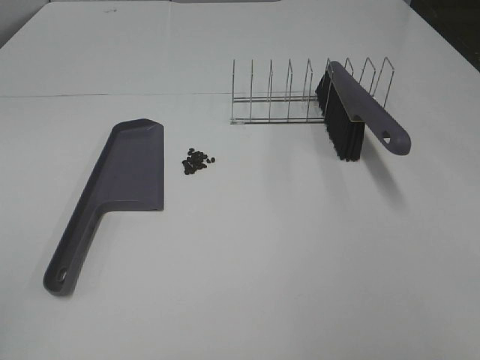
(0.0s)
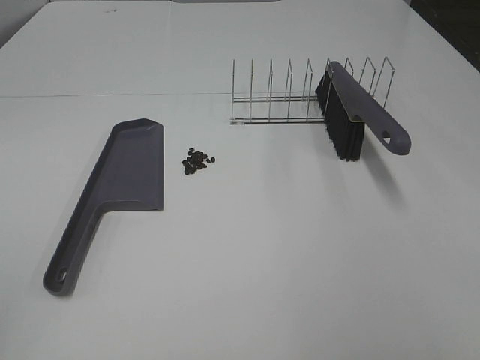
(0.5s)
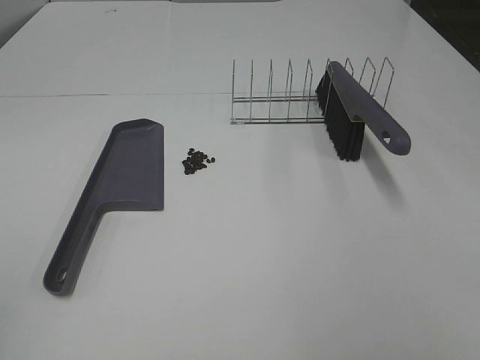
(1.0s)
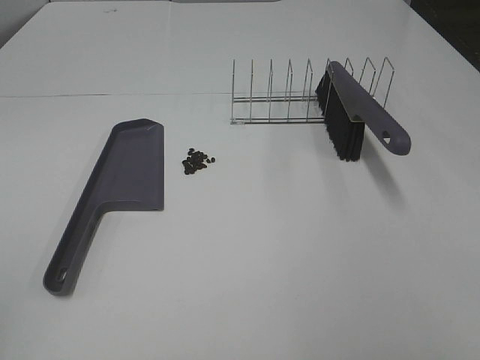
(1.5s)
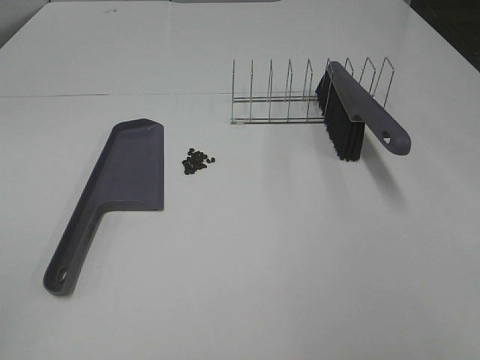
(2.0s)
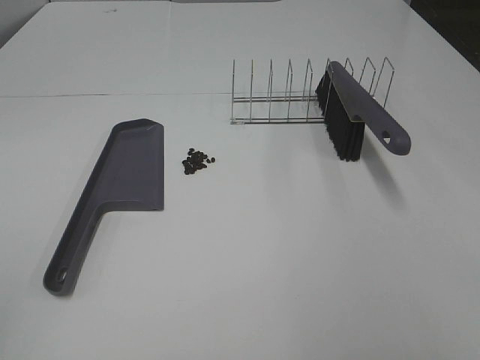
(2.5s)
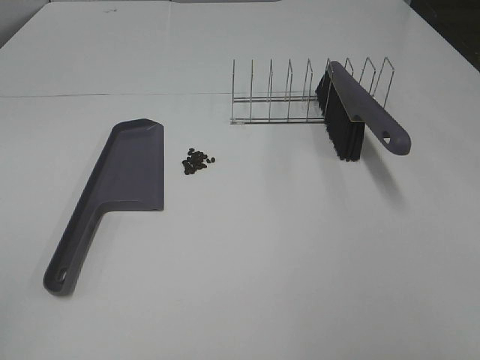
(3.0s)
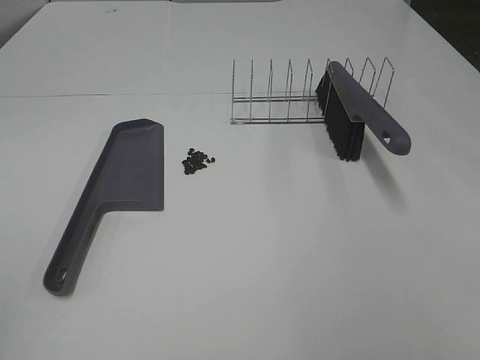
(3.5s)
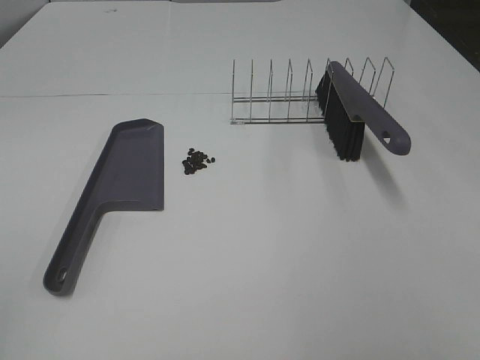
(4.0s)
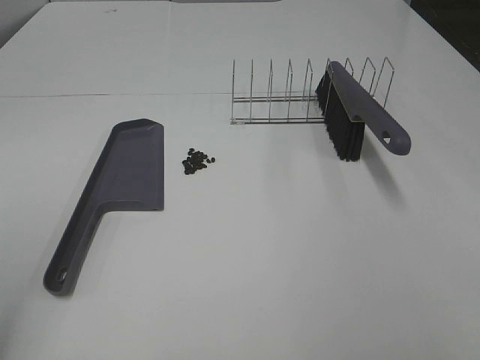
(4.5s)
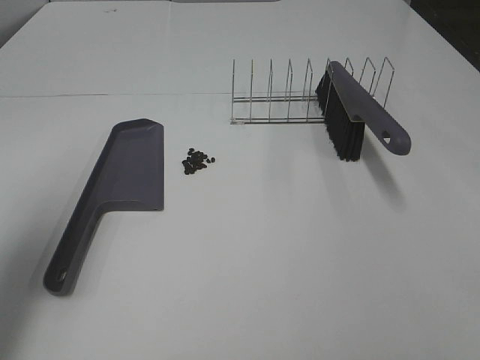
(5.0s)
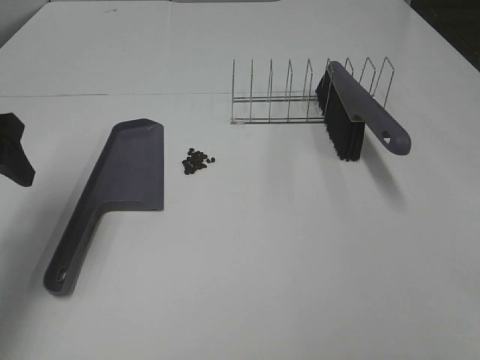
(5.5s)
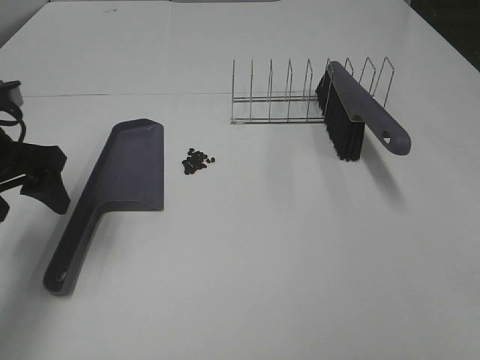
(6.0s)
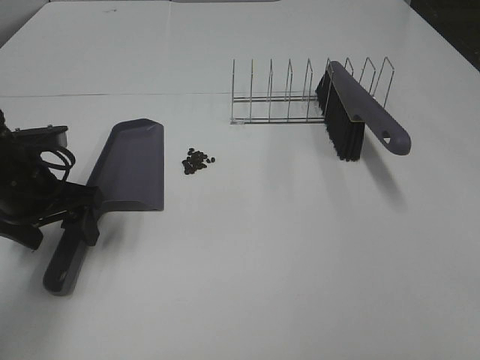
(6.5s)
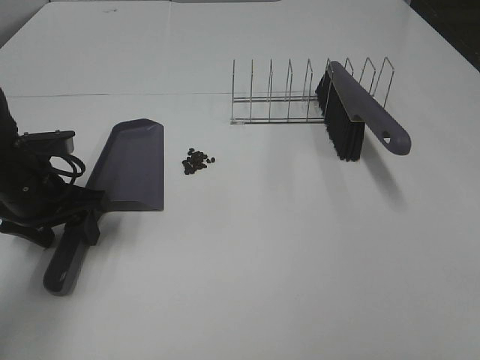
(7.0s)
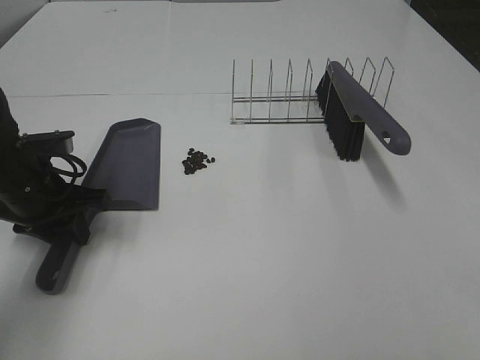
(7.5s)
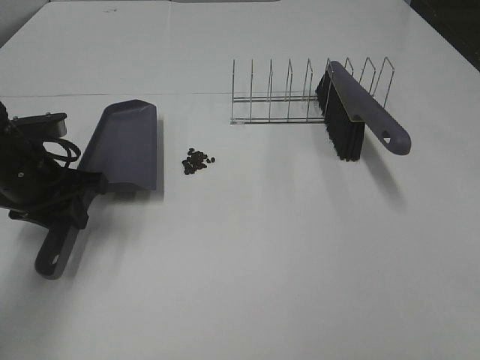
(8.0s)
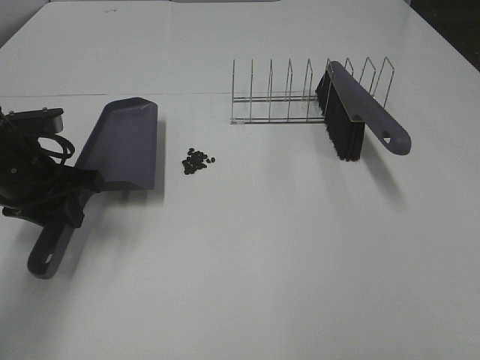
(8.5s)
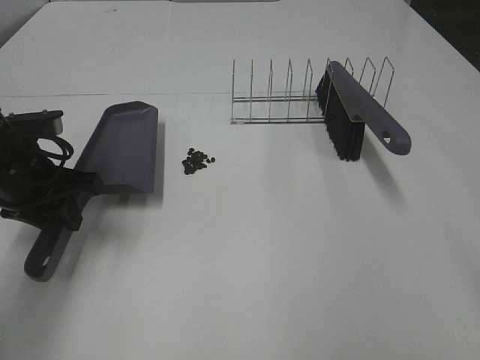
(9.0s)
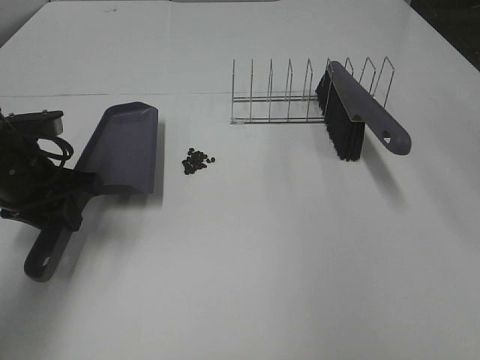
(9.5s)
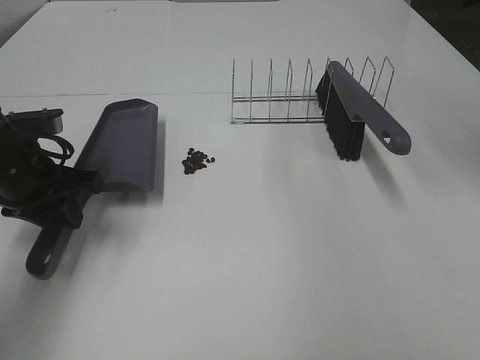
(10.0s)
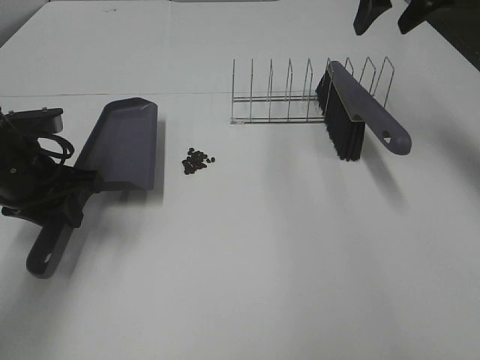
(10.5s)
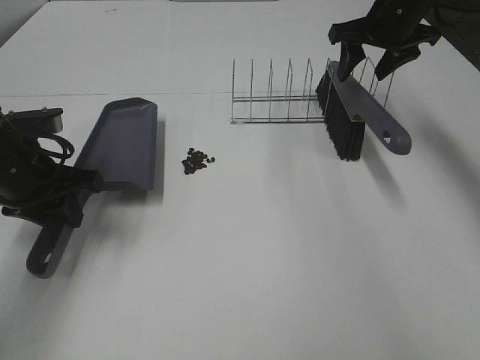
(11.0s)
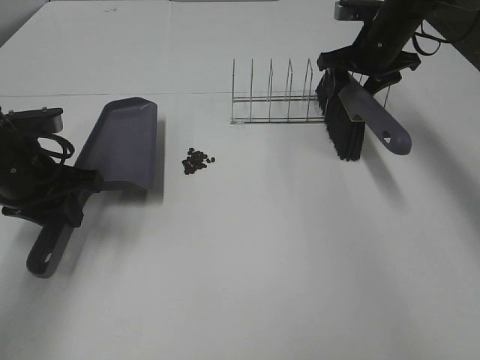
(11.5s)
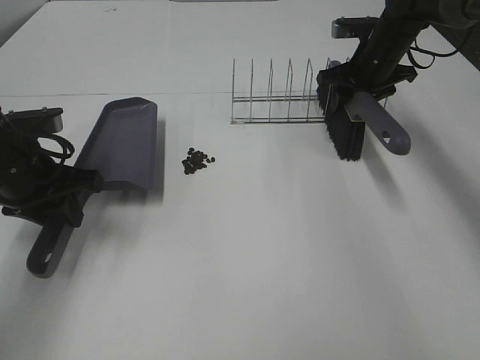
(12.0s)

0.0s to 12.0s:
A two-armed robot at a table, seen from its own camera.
Task of the whole recording: Sweep Coffee Bean.
Step, 0.0s to 7.5s: Left hand: grab the dustpan.
0.0s to 4.0s: Both grippers stay about where they are.
4.0s to 6.0s: The left gripper is displaced forward by approximately 30 cm.
6.0s to 8.0s: The left gripper travels downward by approximately 5 cm, and closes its fingers.
10.0s to 12.0s: The right gripper is displaced downward and forward by about 25 cm.

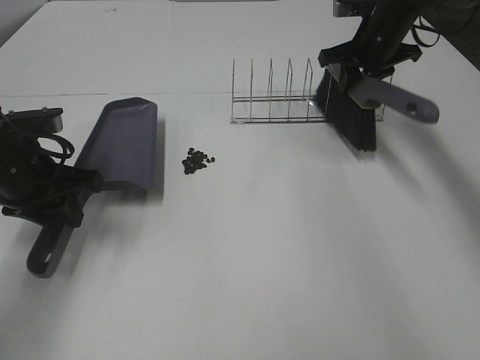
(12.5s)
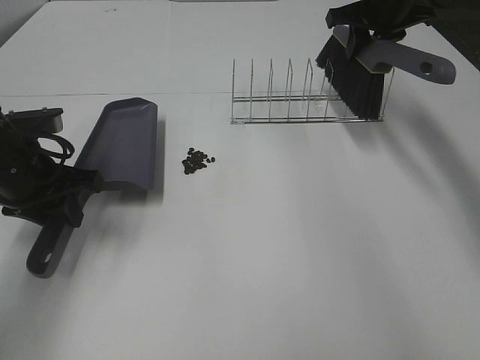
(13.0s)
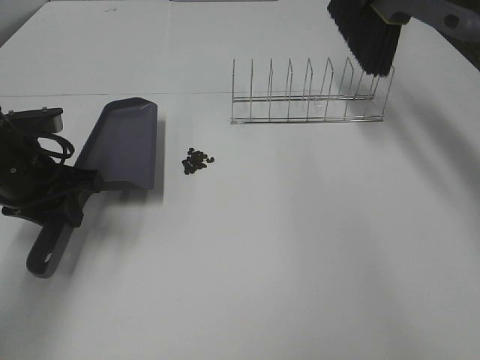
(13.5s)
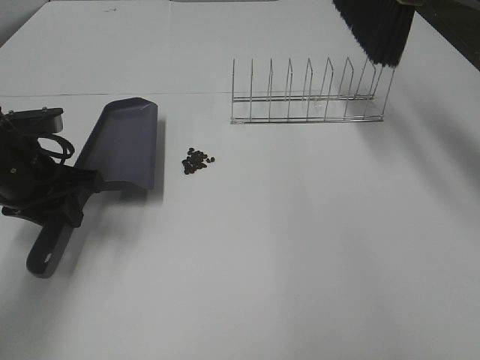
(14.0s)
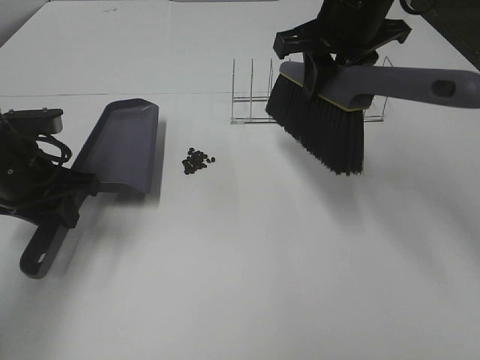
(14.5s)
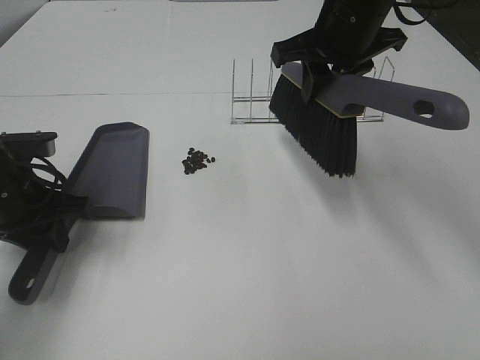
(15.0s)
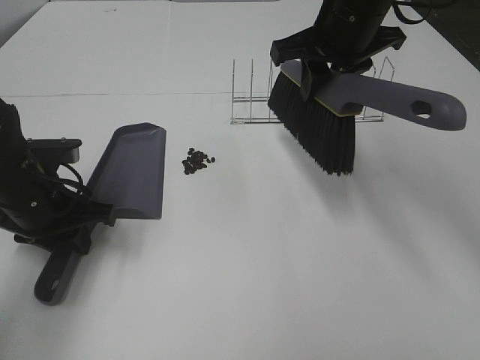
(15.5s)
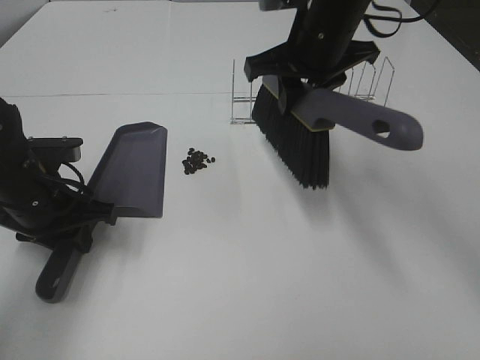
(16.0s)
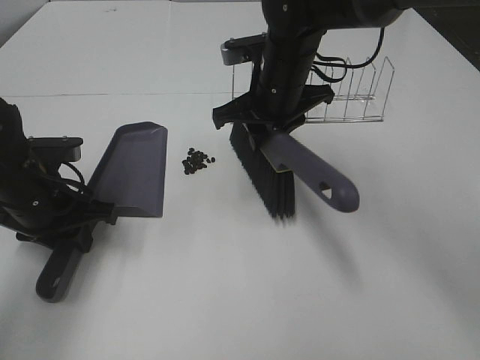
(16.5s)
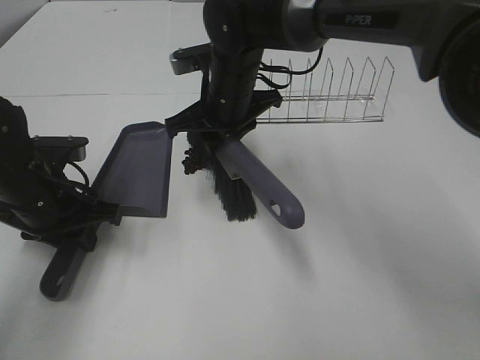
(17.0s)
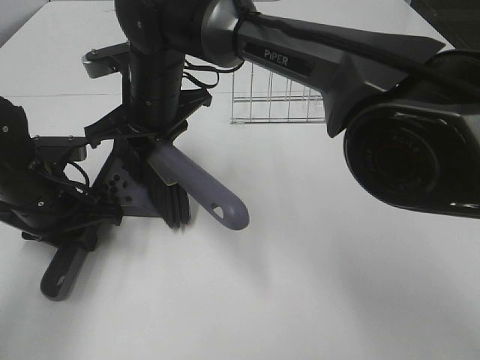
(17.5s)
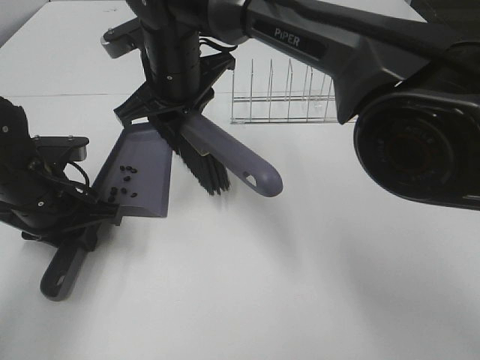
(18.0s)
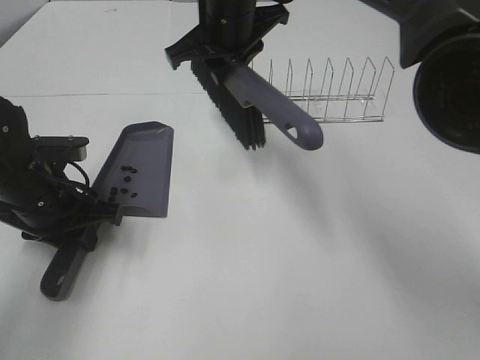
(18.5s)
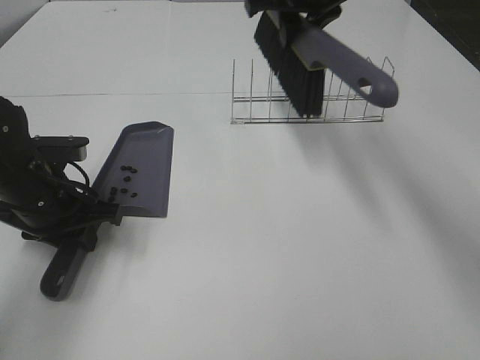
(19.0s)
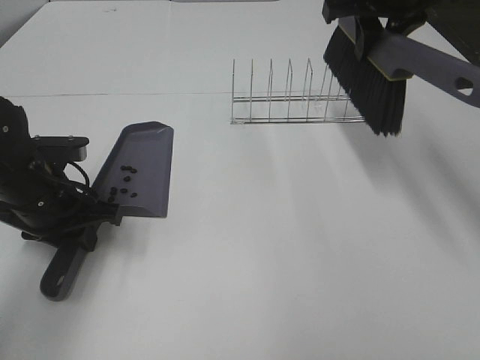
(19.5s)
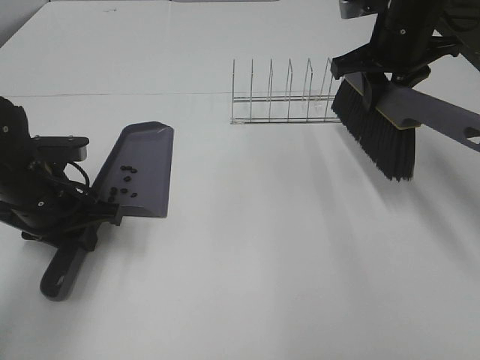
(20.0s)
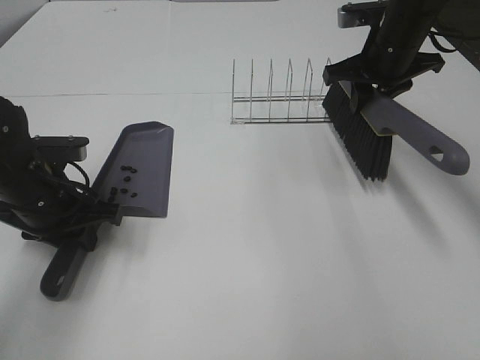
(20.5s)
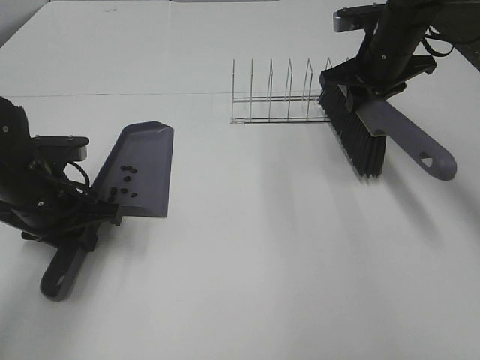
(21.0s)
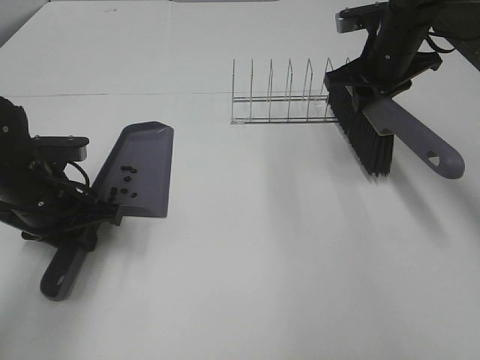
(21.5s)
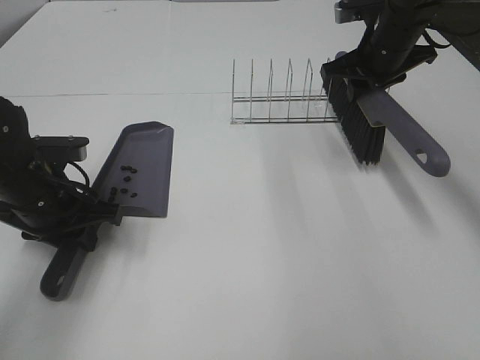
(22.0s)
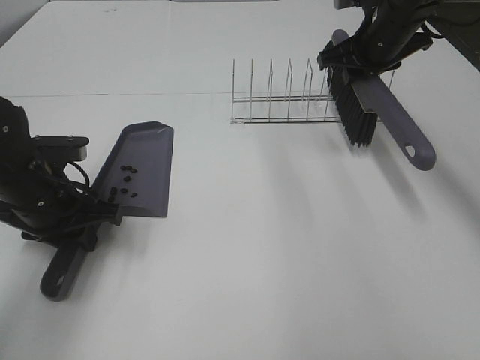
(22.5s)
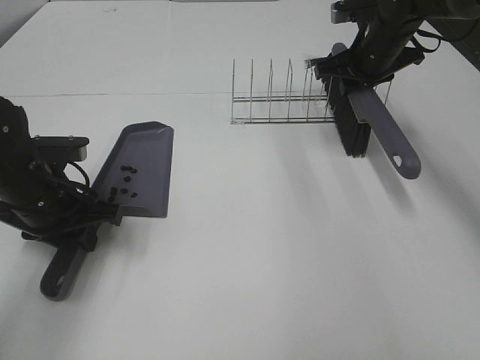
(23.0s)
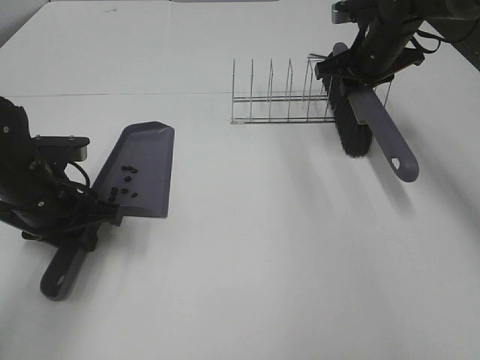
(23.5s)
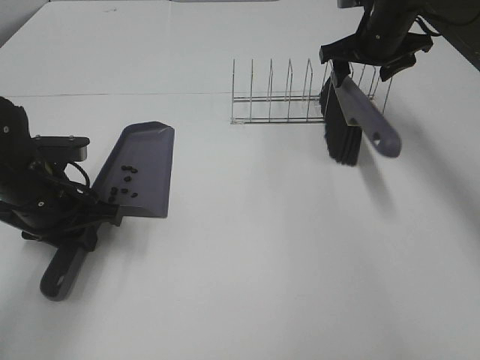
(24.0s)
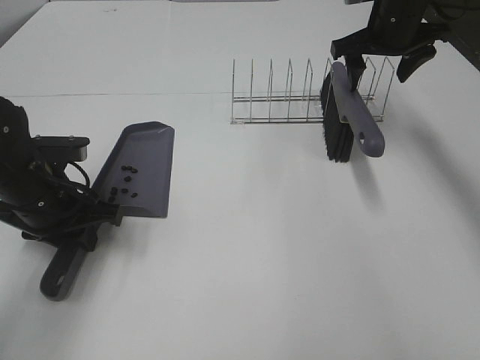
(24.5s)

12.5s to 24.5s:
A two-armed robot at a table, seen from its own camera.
Task of the whole recording: Sweep Coffee Bean.
Step, 13.0s to 17.5s: Right hand:sweep the coffee beans into the dustpan.
Step, 18.0s to 23.5s: Right hand:place the broom on the rack.
12.5s to 14.5s: The right gripper shifts some 20 cm backward, to the left and upward.
14.5s to 16.5s: The right gripper travels downward and to the left by approximately 10 cm.
16.5s to 18.5s: The right gripper shifts some 10 cm upward and to the left.
18.5s to 20.5s: The right gripper shifts roughly 20 cm to the right.
20.5s to 22.5s: The grippers move only a little.
22.5s to 24.5s: The right gripper opens.

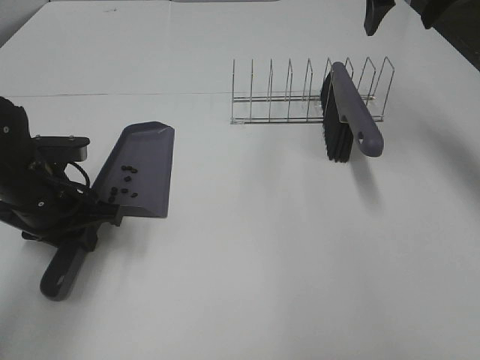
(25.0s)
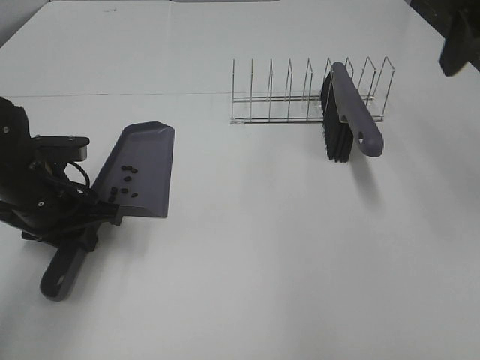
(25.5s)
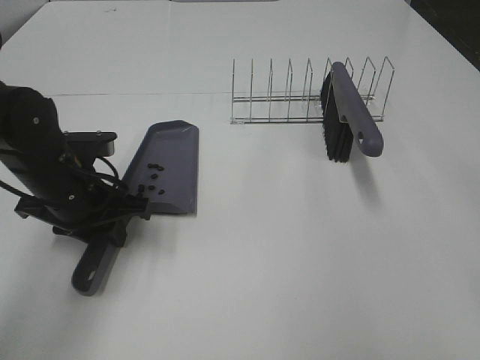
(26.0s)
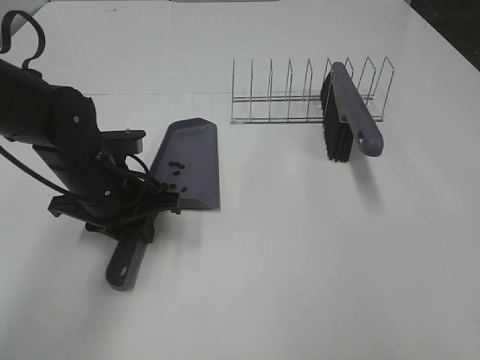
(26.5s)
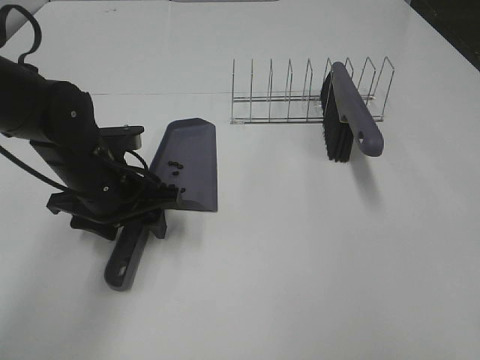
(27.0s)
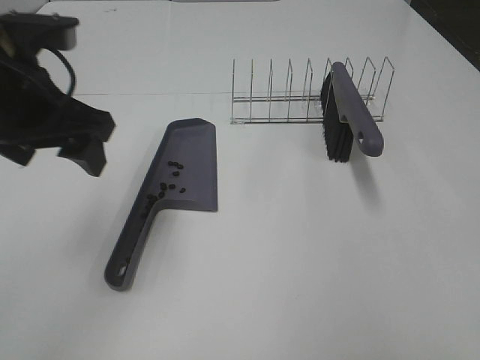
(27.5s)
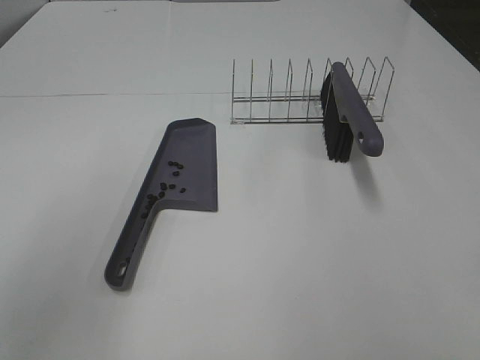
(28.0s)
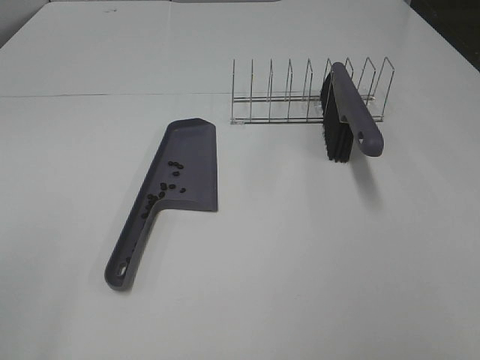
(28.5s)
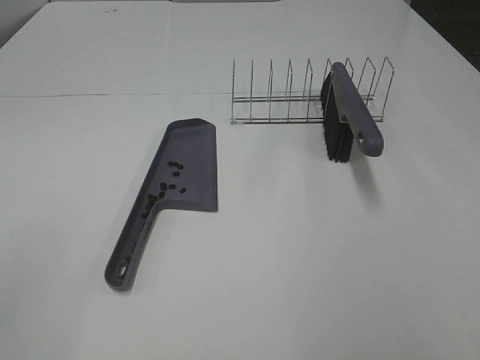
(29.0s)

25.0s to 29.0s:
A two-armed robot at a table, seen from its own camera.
Task of the whole recording: Sweep Coffee Bean.
Step, 25.0s to 26.5s: Left hand:place the dustpan on the table.
25.0s to 27.0s: The left gripper is displaced to the right by approximately 5 cm, and opens up, while the right gripper shifts roughly 35 cm backward.
27.0s to 29.0s: The right gripper travels backward by roughly 5 cm. The left gripper travels backward, upward and to the left by approximately 40 cm.
